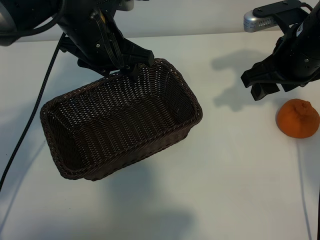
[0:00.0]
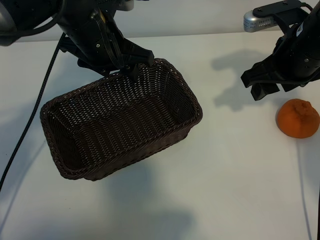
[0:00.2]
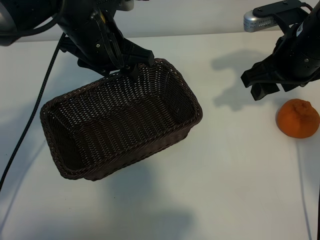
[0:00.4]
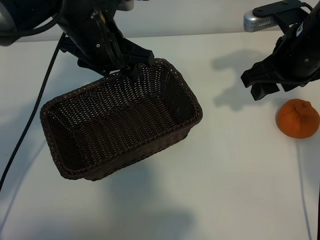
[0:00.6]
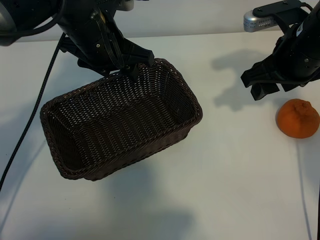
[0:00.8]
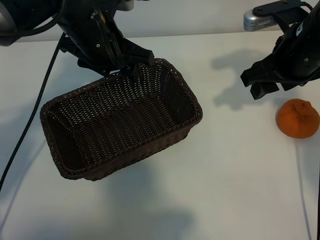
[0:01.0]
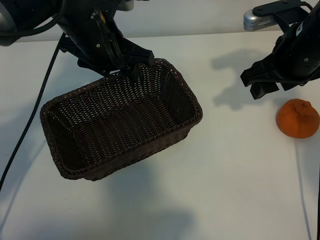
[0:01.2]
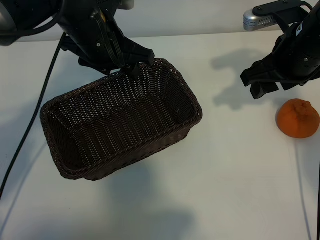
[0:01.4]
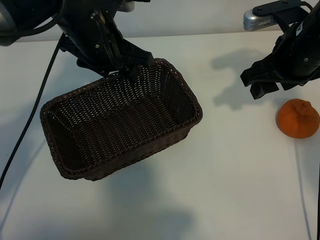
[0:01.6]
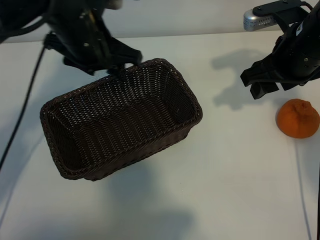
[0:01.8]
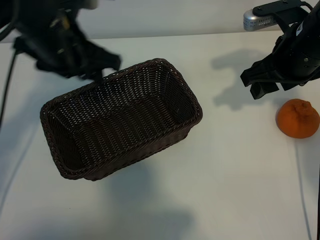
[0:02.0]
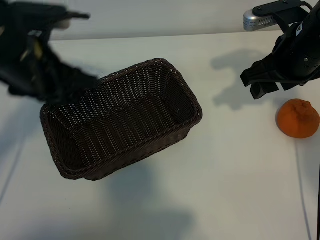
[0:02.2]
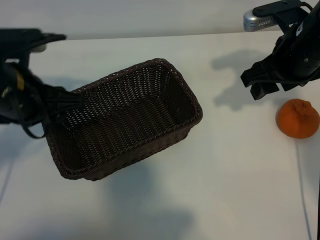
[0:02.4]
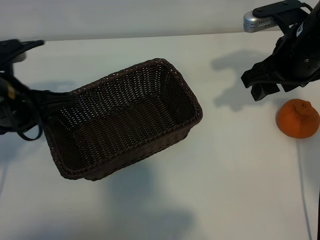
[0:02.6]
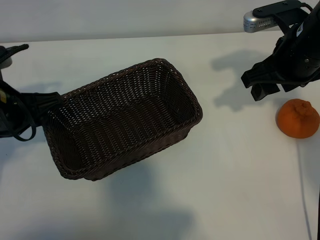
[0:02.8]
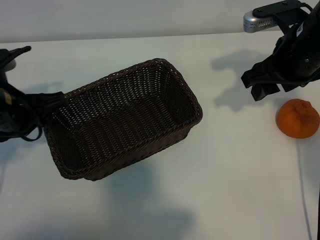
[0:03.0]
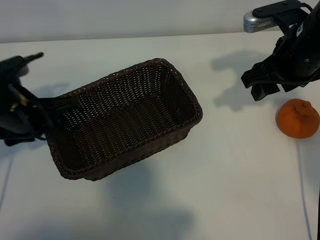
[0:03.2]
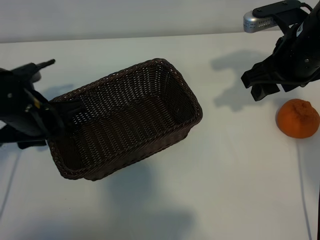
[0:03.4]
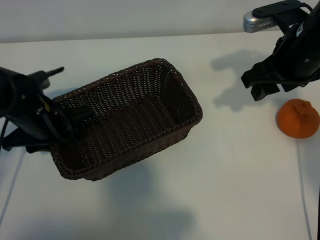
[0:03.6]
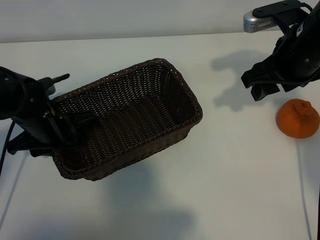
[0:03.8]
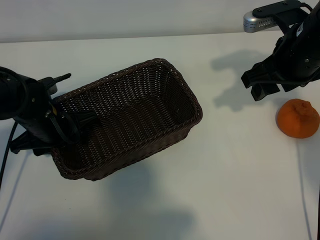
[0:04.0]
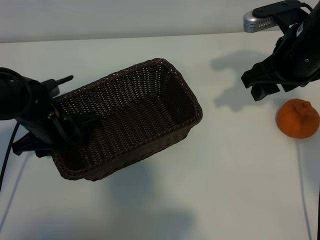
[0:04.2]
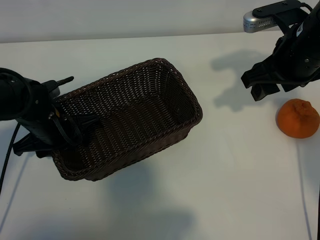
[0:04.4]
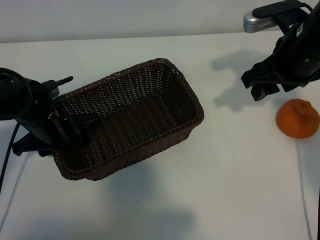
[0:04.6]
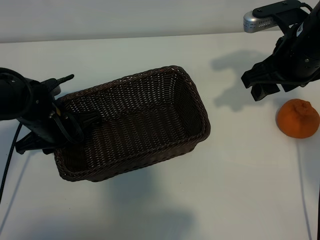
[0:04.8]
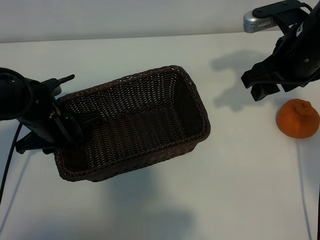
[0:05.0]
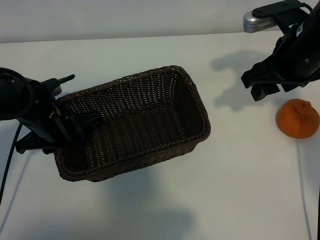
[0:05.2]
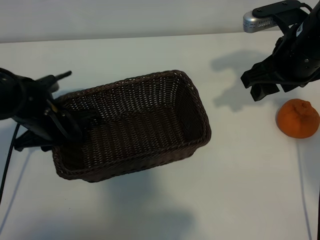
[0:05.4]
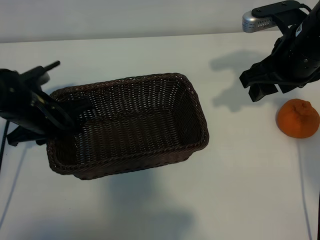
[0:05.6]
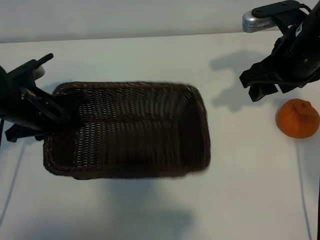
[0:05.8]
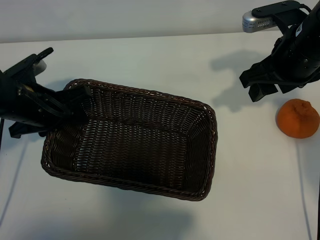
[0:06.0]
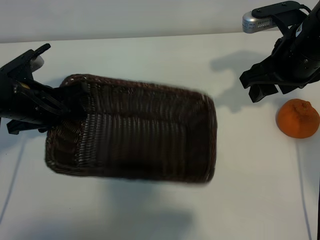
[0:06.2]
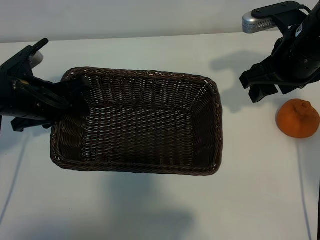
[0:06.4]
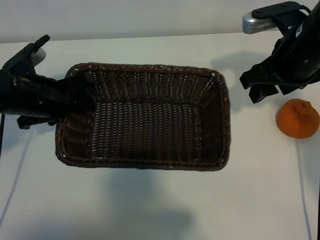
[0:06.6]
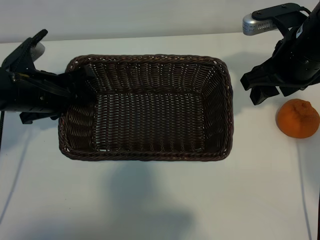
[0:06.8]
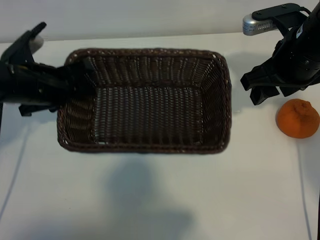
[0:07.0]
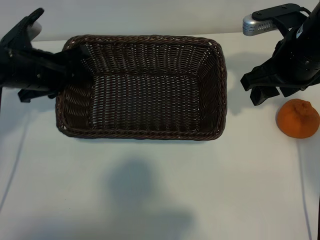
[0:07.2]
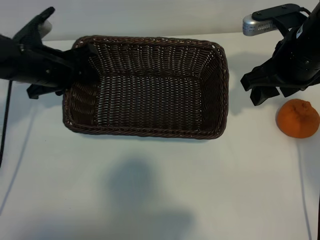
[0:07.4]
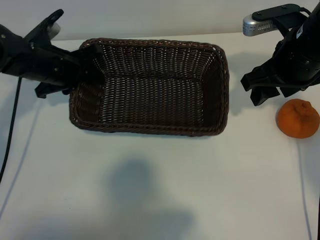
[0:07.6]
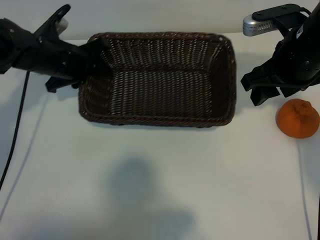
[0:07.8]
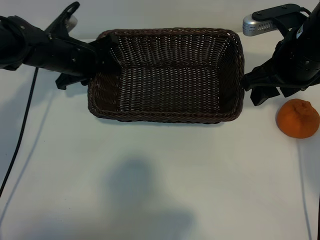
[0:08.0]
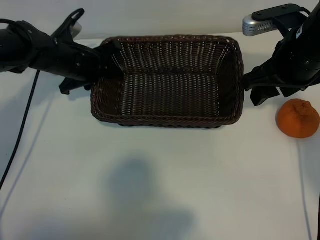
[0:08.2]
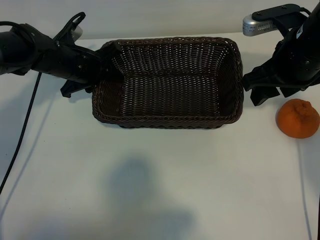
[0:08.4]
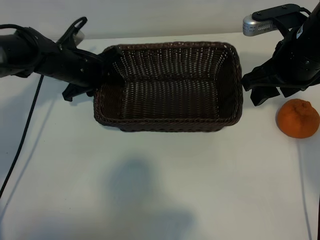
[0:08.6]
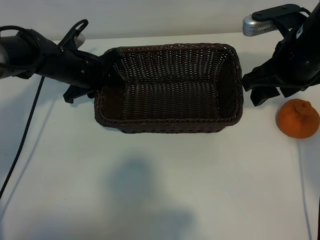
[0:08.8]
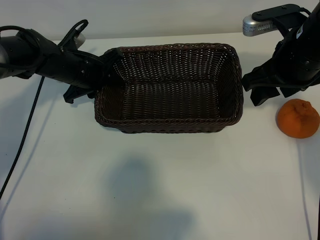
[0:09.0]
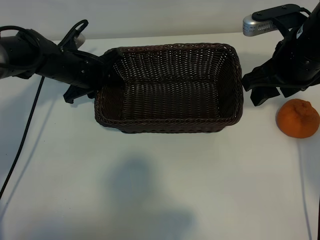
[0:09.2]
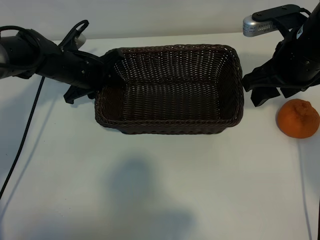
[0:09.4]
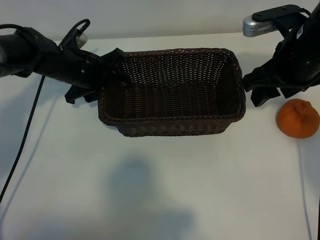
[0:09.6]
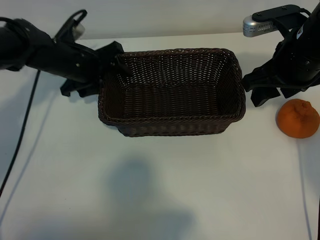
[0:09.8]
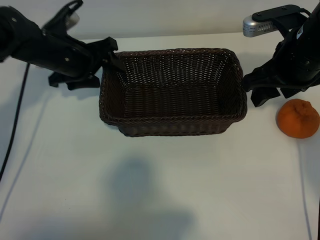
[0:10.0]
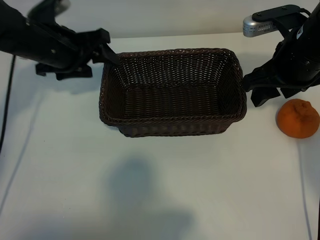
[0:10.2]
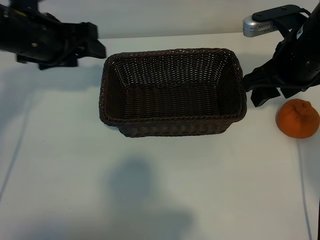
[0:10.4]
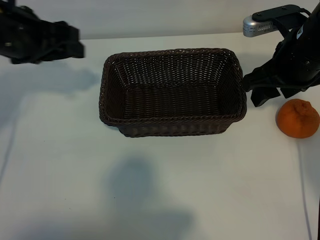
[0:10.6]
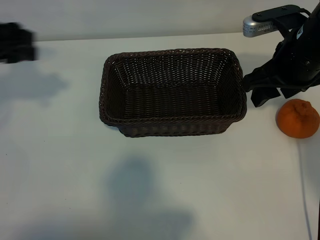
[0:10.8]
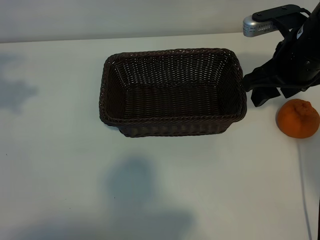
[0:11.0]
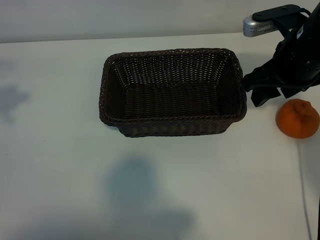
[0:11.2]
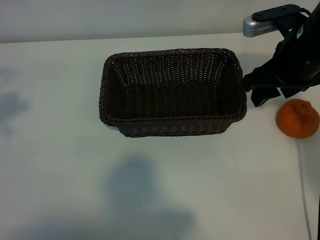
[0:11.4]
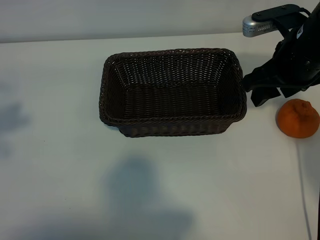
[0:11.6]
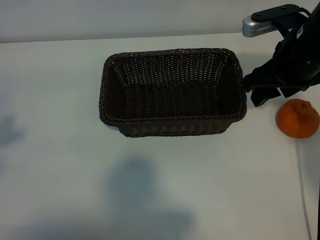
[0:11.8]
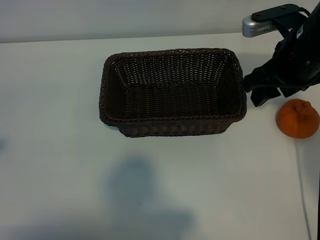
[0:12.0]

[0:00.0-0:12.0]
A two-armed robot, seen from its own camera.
Task of the whole recording: pick up the orange and put it into the basket.
Step, 0:01.0 to 0:04.6: Grasp the basket with left gripper.
Step, 0:05.0 to 0:09.4: Place the basket in the center of view with left gripper.

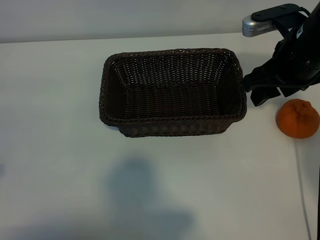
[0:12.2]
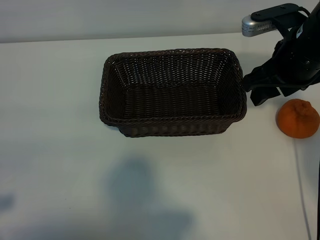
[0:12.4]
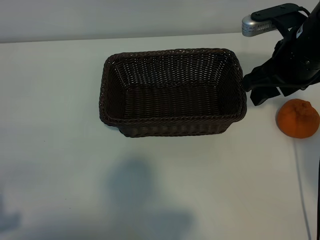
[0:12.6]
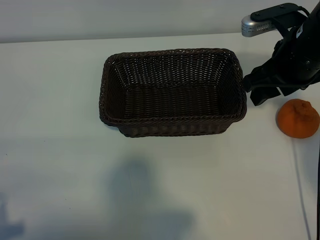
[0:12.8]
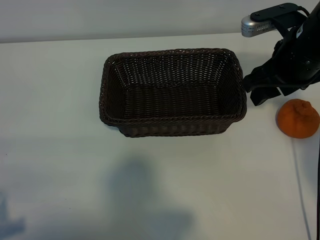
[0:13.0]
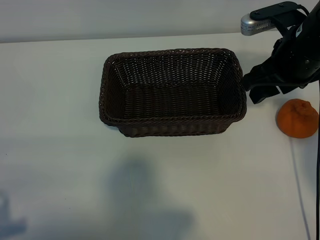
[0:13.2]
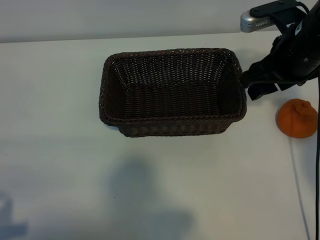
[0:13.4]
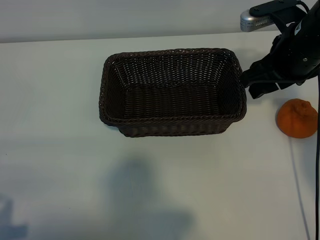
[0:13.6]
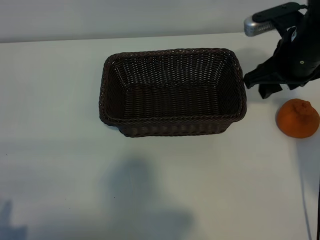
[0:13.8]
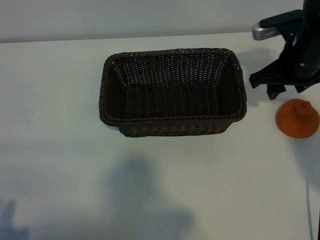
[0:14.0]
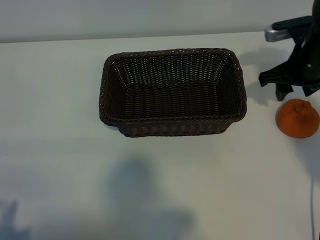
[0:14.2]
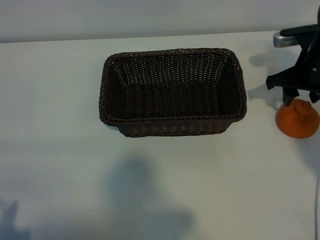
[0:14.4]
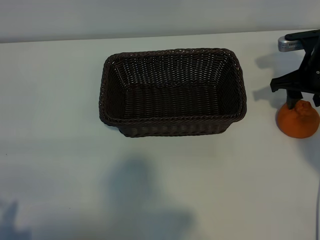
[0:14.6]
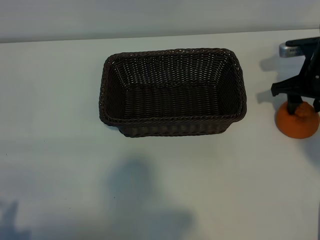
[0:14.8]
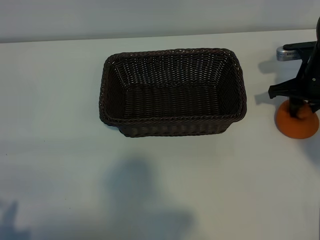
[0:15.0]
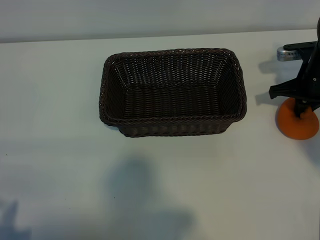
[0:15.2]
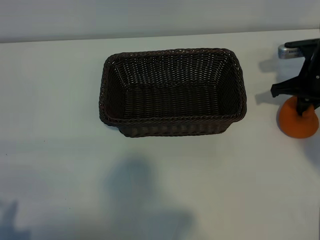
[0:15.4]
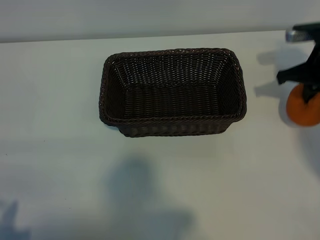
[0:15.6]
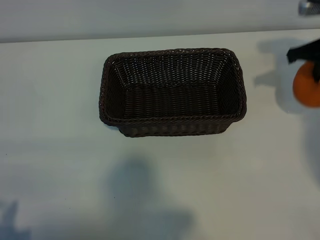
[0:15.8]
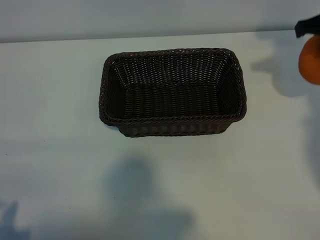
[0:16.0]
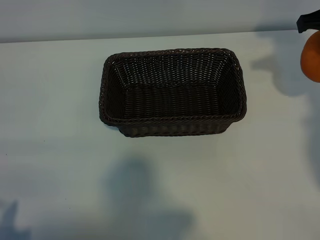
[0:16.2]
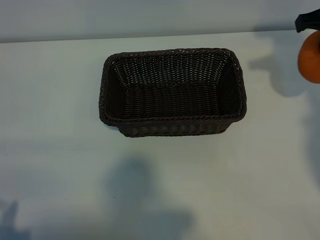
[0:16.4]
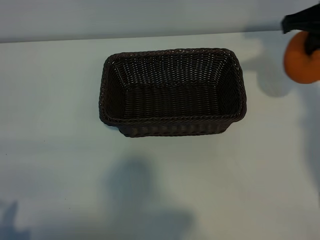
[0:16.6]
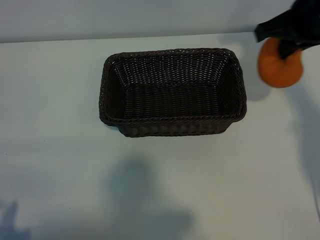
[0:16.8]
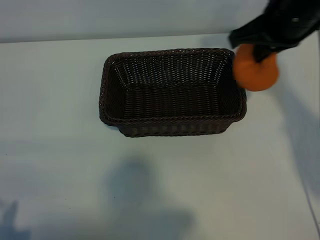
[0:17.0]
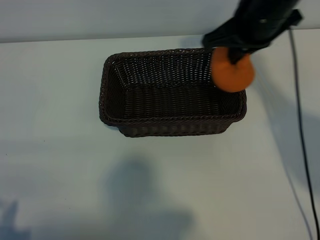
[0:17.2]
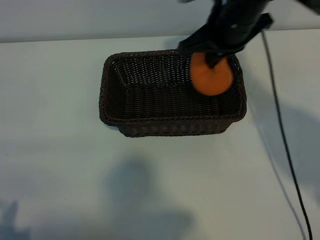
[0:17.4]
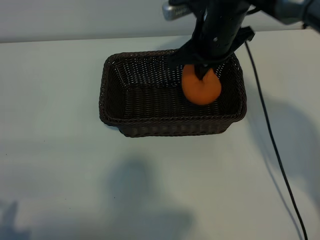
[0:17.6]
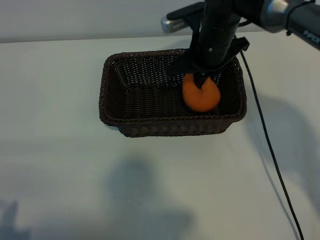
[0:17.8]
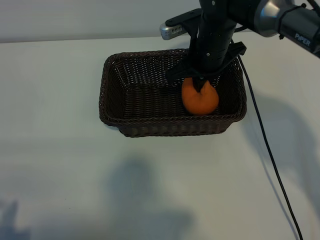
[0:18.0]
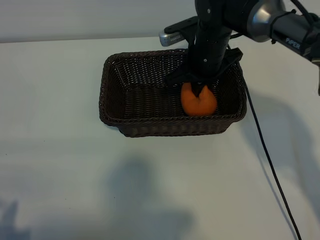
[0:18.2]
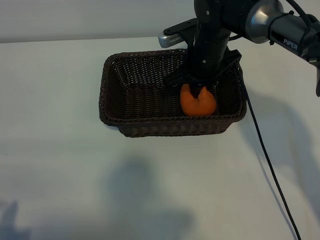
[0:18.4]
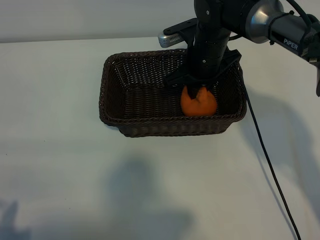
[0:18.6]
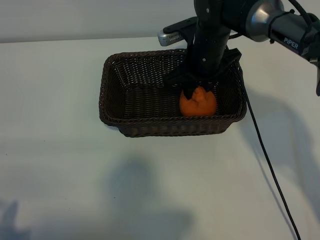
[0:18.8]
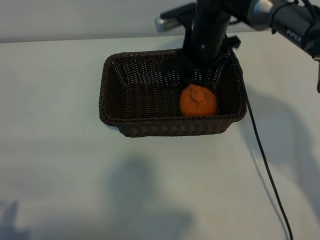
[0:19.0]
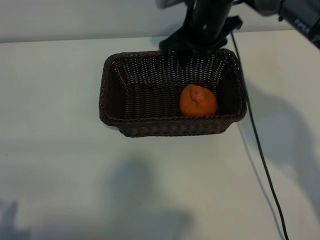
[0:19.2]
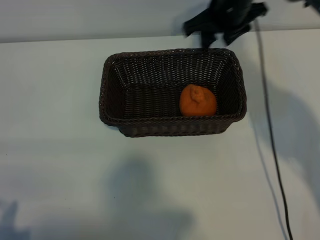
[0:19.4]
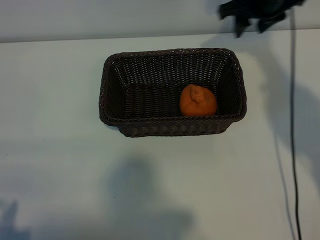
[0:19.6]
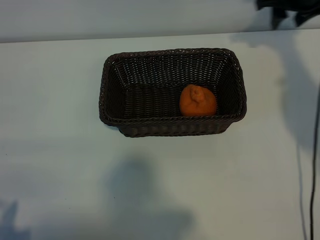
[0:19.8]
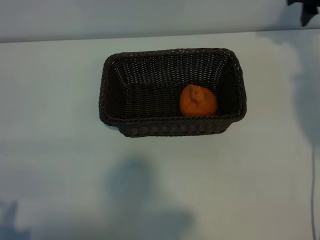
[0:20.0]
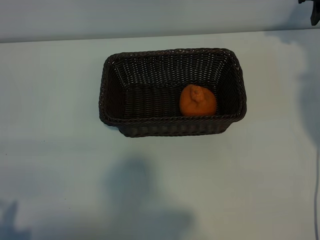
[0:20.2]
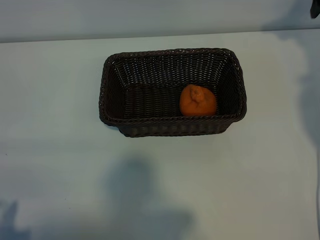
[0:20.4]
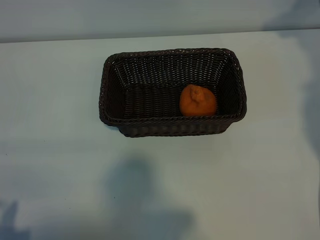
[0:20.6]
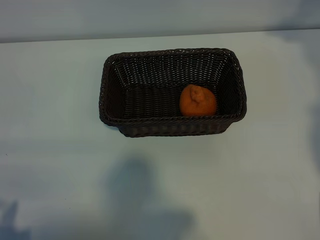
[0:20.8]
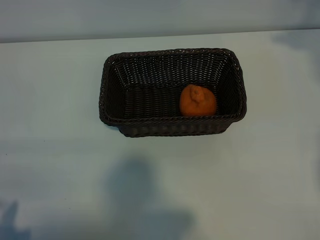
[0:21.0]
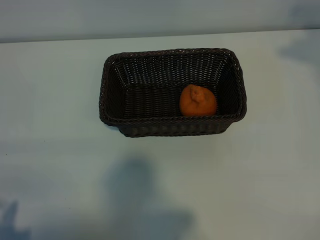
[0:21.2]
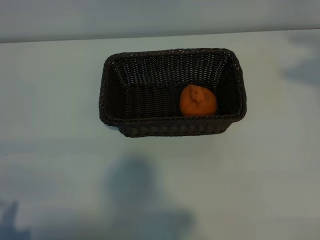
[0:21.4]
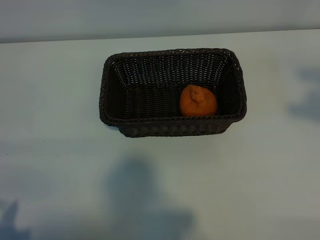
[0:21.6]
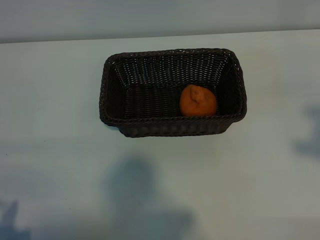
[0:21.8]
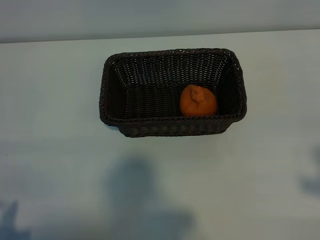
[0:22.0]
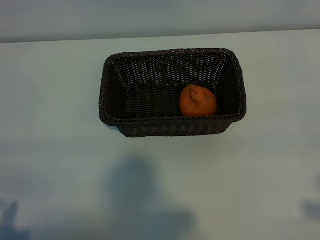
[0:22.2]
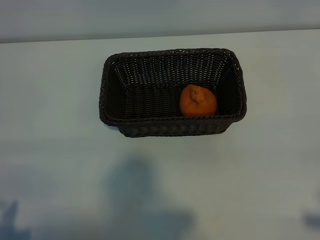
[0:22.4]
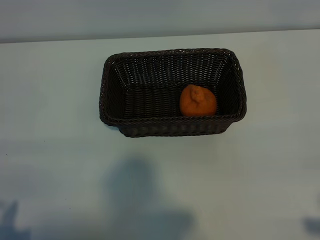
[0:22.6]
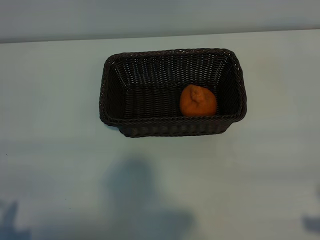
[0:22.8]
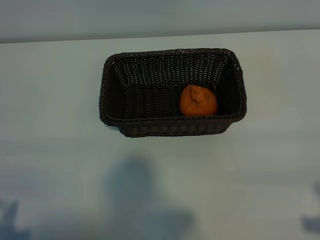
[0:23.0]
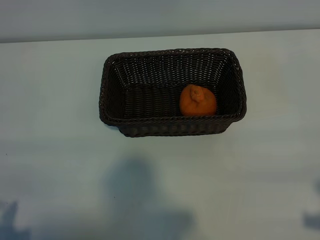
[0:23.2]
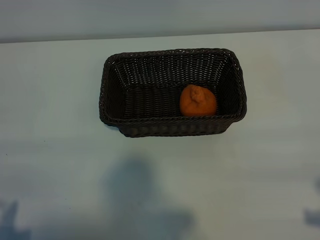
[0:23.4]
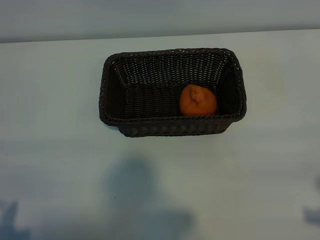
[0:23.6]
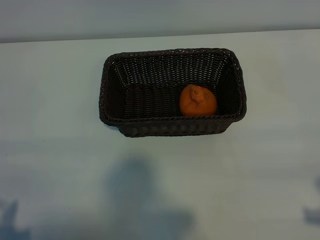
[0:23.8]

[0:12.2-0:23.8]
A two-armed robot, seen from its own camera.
Task of the whole recording: pick up the orange and put it into the basket.
Step, 0:12.2 to 0:15.0: Grasp the orange with right gripper.
Step, 0:15.2 to 0:18.6: Place the orange in the basket with right gripper.
